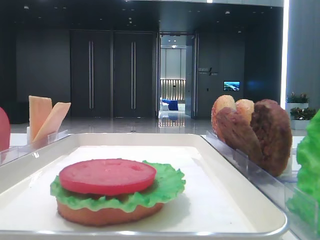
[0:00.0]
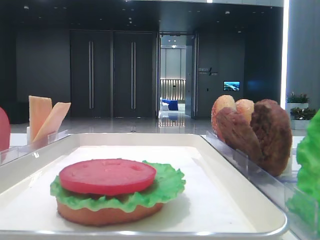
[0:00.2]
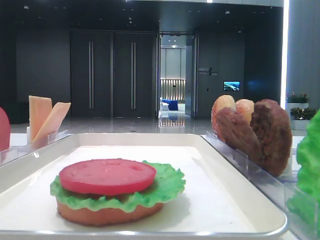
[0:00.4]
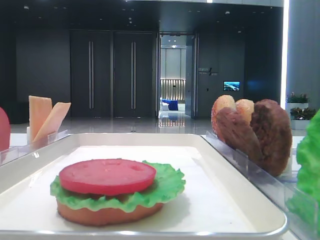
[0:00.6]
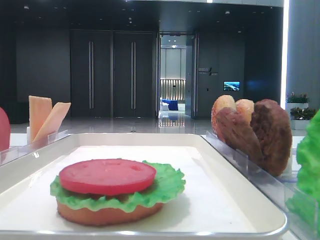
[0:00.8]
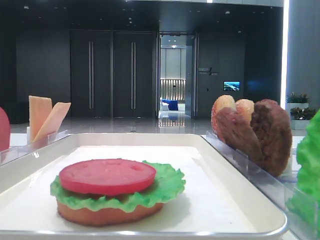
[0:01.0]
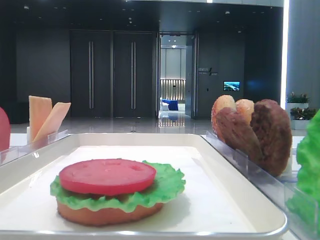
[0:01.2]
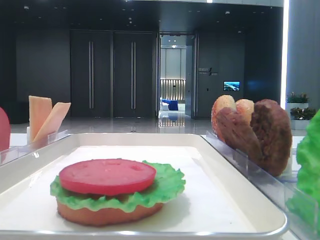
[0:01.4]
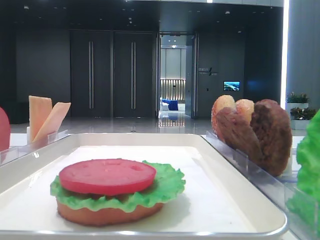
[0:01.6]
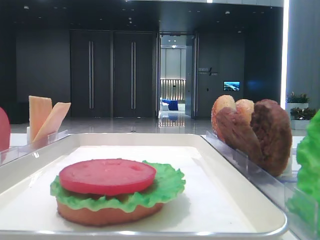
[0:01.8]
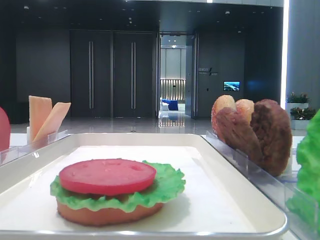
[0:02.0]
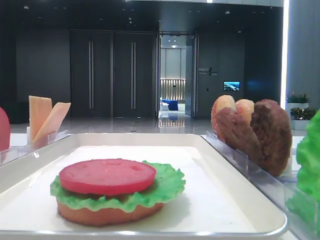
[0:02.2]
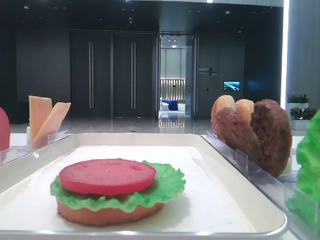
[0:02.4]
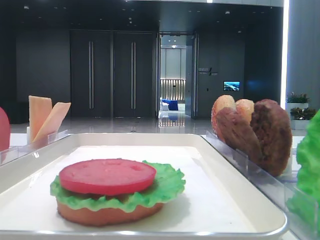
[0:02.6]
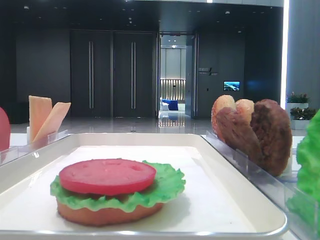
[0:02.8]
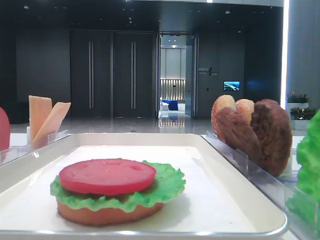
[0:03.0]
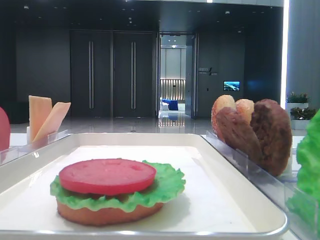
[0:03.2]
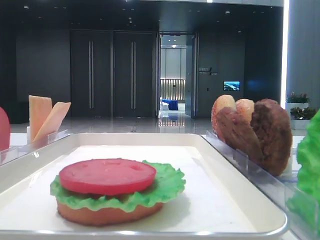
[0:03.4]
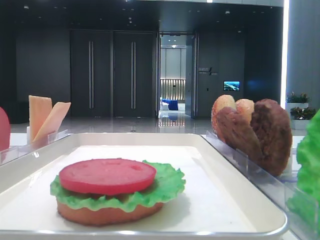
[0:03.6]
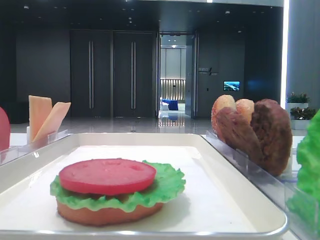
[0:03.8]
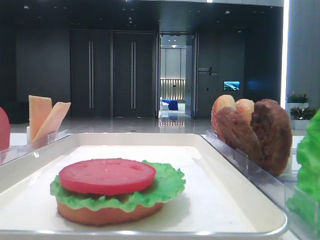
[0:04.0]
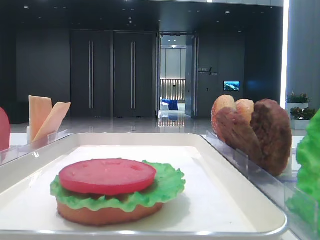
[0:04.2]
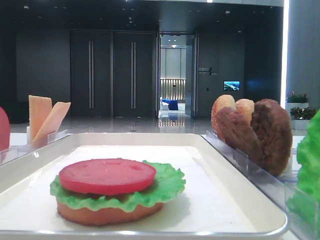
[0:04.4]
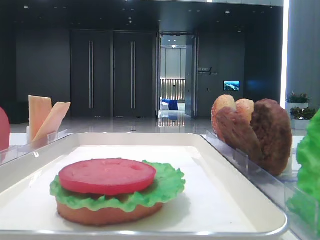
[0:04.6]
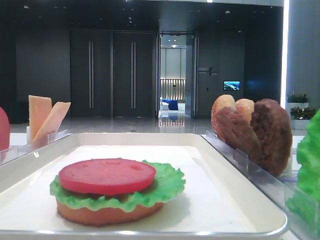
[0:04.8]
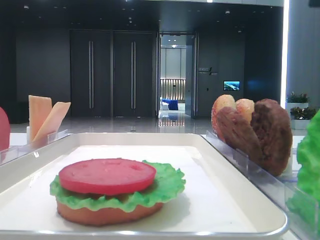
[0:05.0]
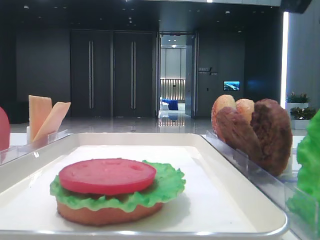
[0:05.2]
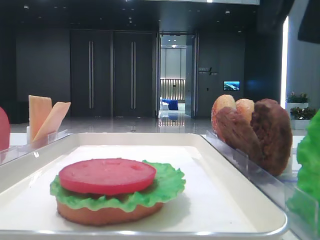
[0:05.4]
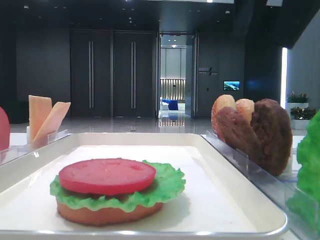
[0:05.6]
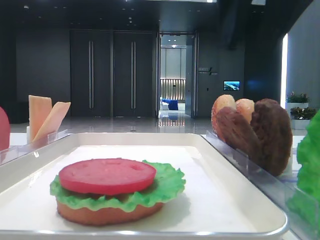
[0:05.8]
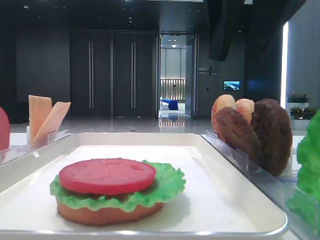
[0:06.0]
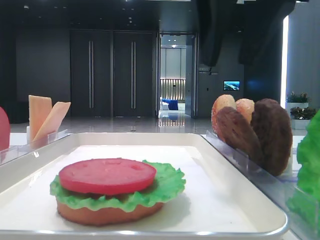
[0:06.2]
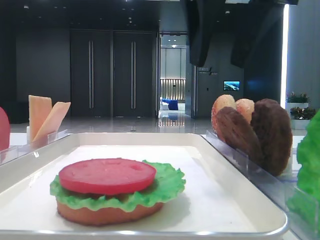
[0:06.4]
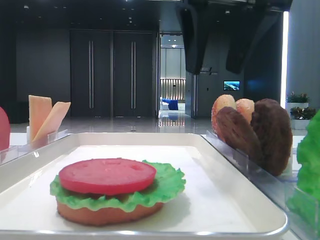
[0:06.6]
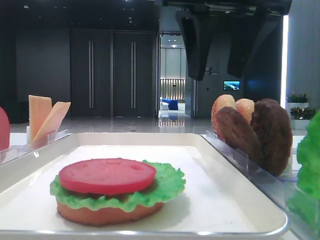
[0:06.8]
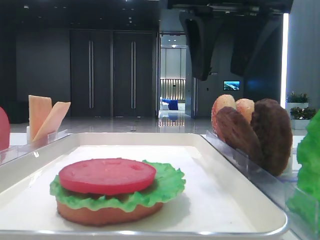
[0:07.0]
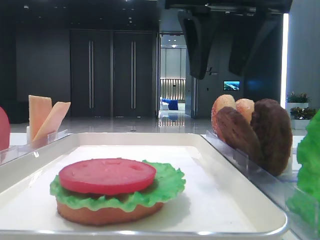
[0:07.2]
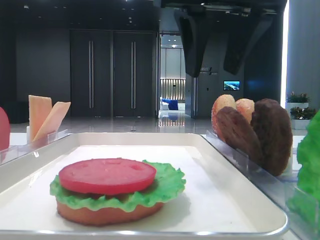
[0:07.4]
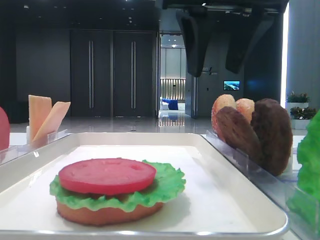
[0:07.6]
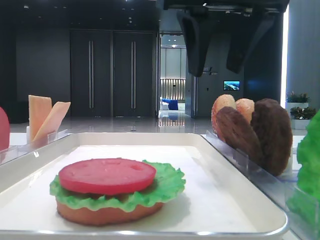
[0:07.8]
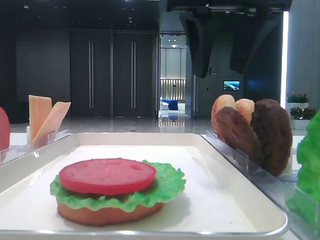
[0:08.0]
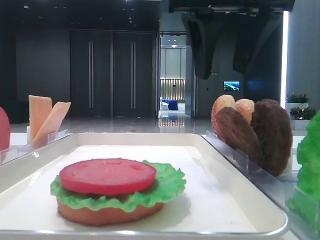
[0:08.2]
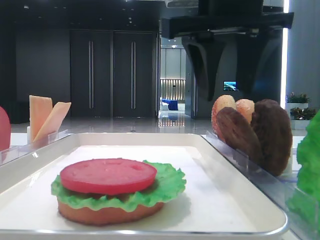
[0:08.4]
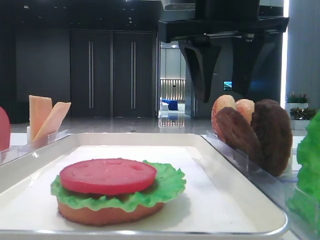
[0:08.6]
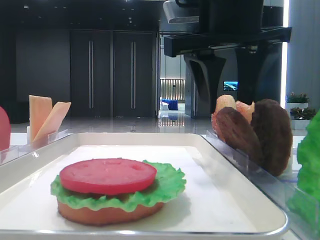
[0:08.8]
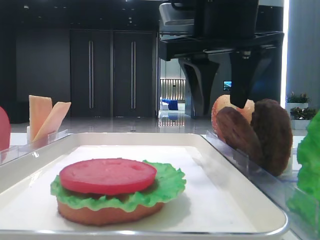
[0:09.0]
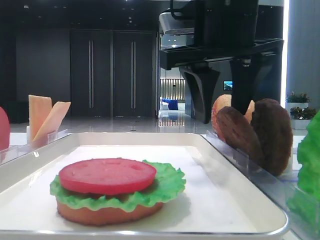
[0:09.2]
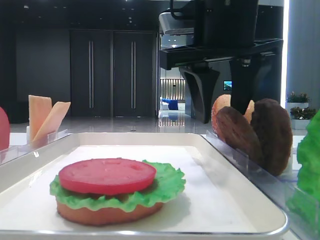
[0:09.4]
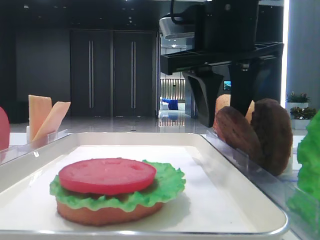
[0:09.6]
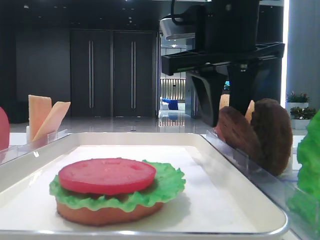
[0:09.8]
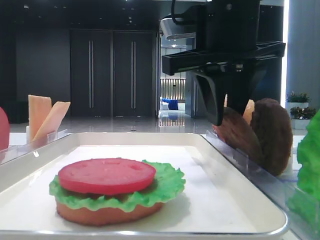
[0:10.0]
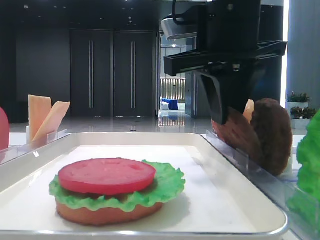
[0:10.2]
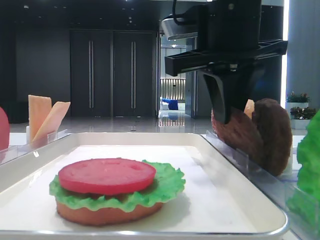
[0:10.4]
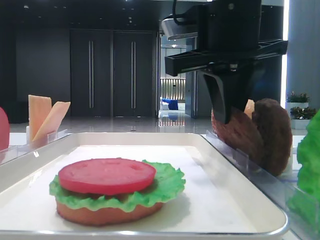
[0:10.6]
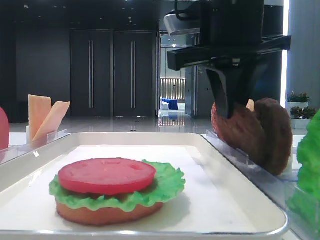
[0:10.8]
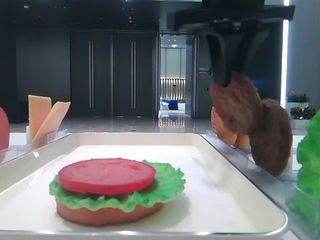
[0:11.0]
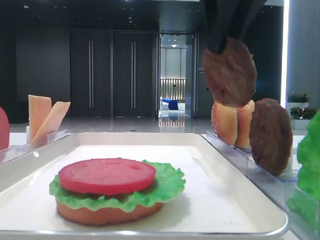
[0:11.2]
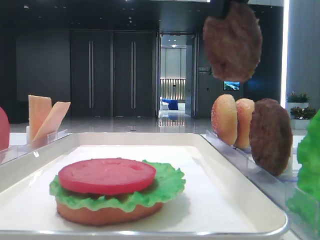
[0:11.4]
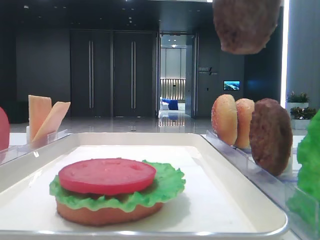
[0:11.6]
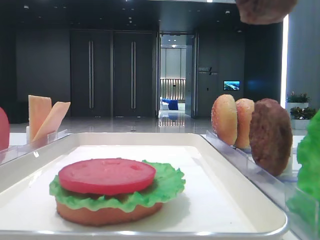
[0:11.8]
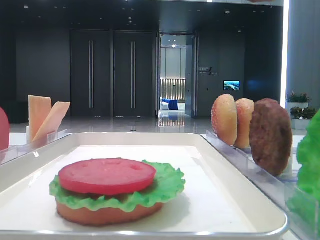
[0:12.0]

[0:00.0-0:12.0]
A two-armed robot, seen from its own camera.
Step, 0:00.0 to 0:10.8: Grab the patty with the right hand.
0:04.4 to 0:06.0: The right gripper goes approximately 15 cm to the left and forward.
0:06.0 to 0:07.6: The grippers make only small movements.
0:07.6 to 0:09.0: The grippers move only a little.
0:09.0 to 0:10.4: The right gripper closes its fingers.
0:10.4 to 0:12.0: The right gripper shifts some 20 cm upward and backward.

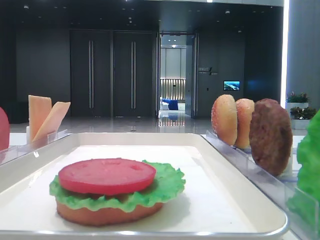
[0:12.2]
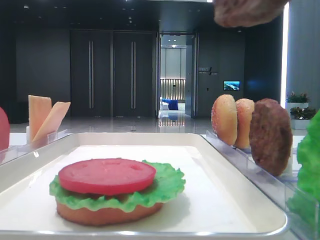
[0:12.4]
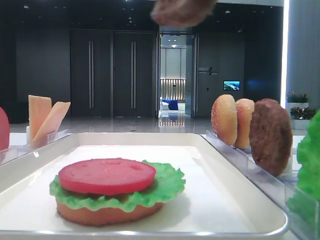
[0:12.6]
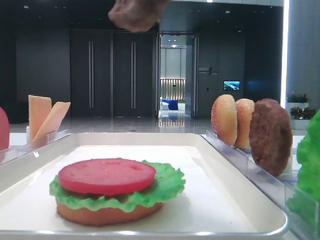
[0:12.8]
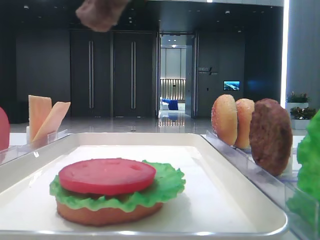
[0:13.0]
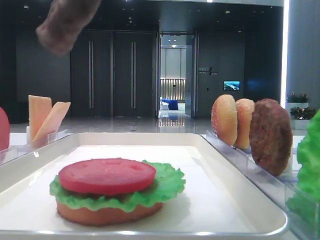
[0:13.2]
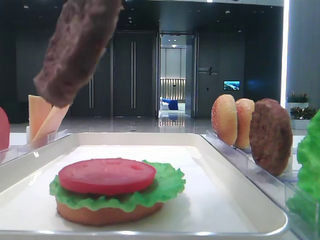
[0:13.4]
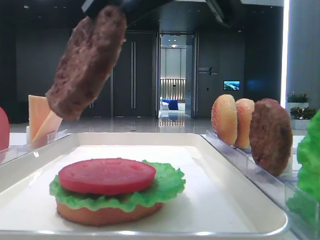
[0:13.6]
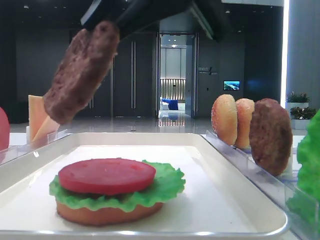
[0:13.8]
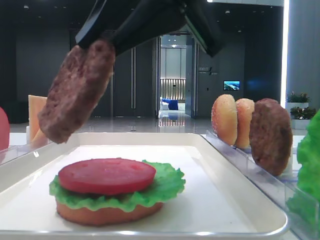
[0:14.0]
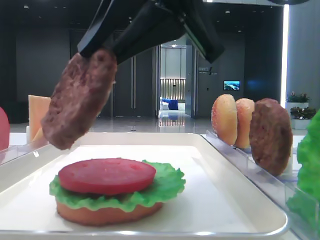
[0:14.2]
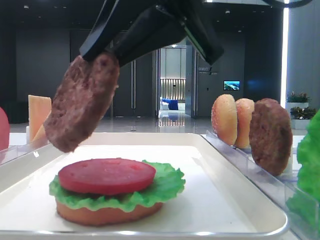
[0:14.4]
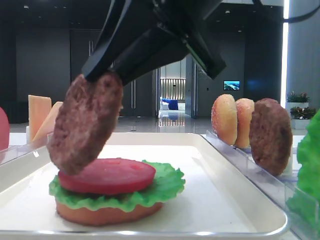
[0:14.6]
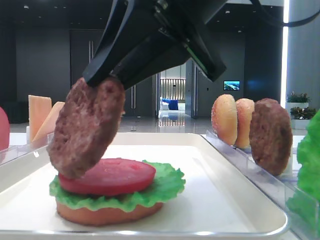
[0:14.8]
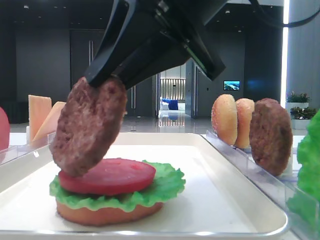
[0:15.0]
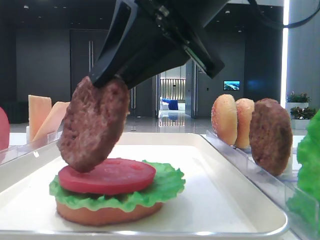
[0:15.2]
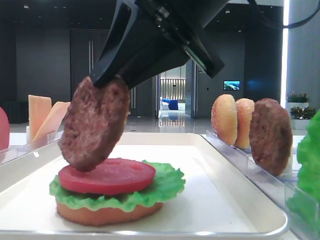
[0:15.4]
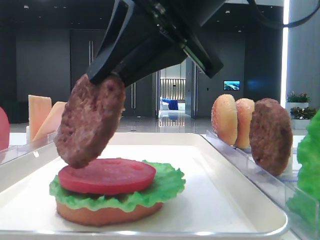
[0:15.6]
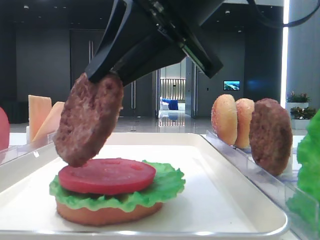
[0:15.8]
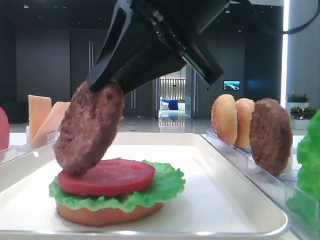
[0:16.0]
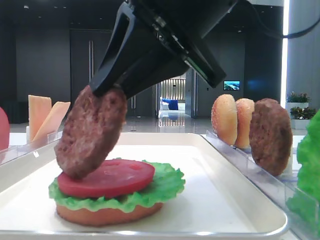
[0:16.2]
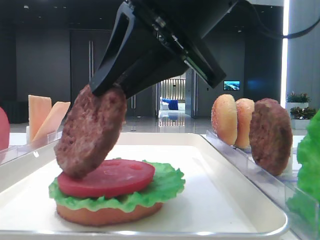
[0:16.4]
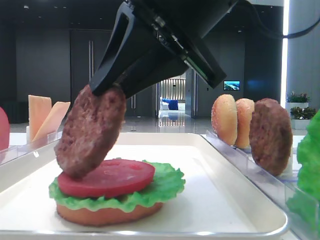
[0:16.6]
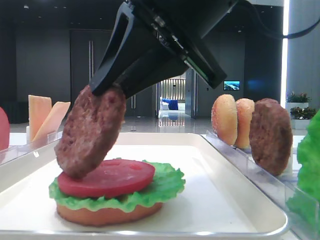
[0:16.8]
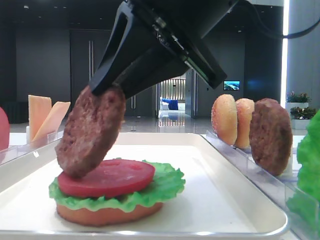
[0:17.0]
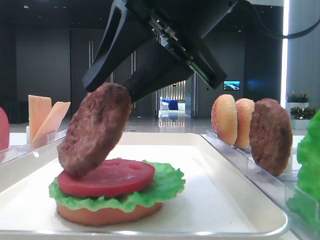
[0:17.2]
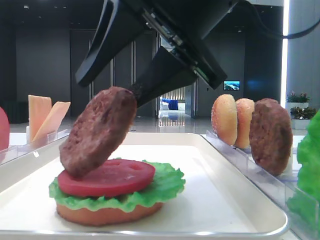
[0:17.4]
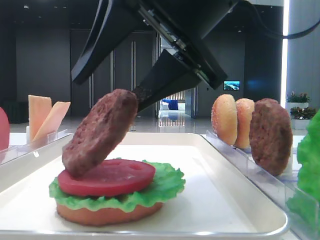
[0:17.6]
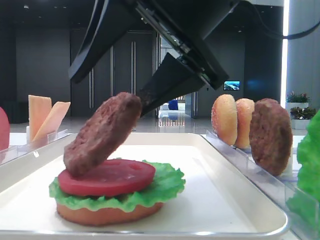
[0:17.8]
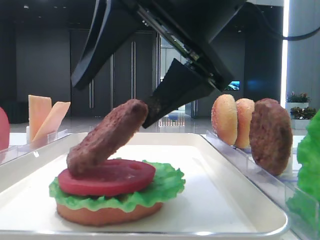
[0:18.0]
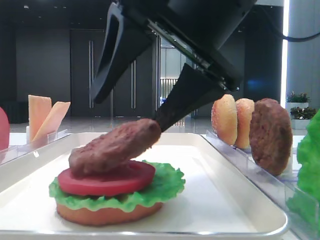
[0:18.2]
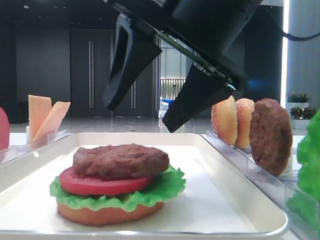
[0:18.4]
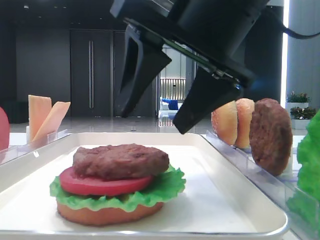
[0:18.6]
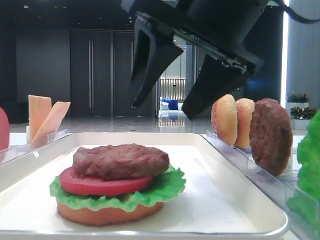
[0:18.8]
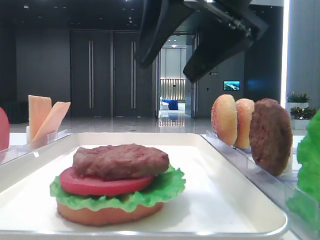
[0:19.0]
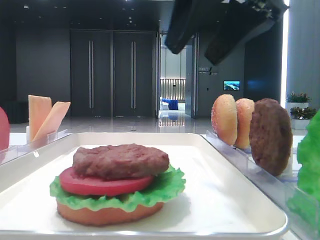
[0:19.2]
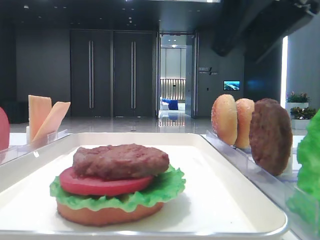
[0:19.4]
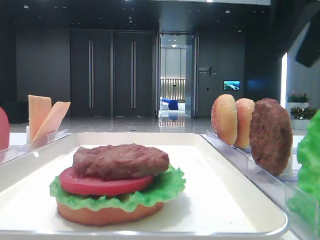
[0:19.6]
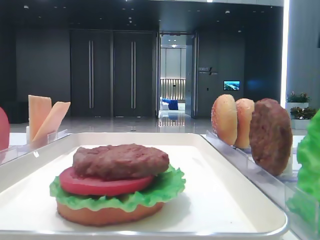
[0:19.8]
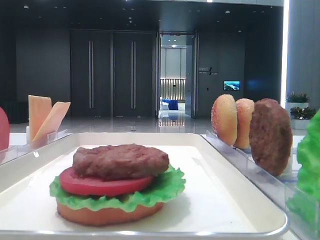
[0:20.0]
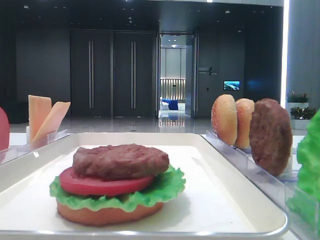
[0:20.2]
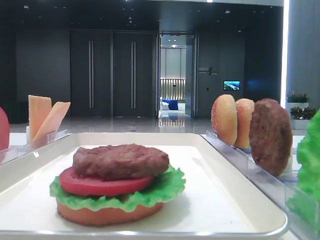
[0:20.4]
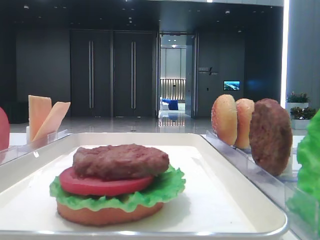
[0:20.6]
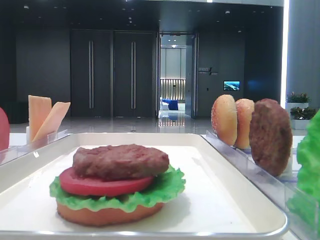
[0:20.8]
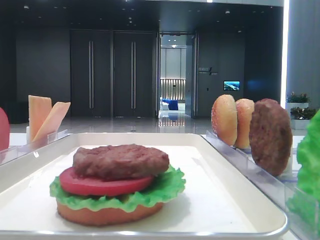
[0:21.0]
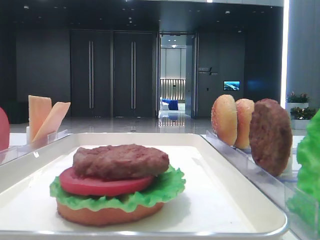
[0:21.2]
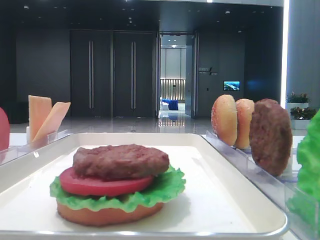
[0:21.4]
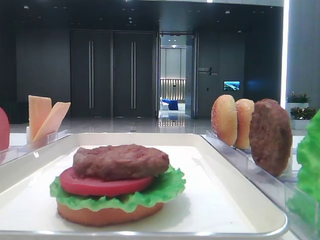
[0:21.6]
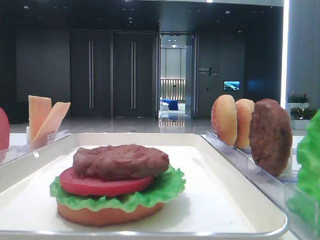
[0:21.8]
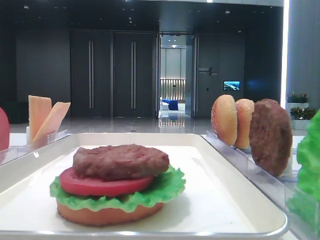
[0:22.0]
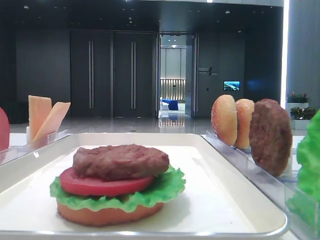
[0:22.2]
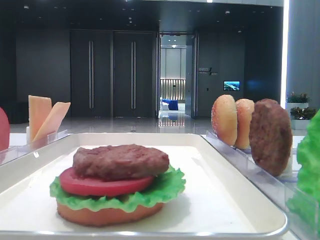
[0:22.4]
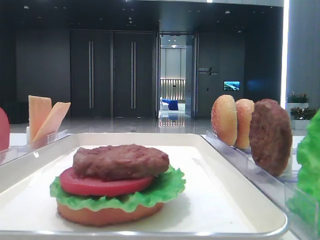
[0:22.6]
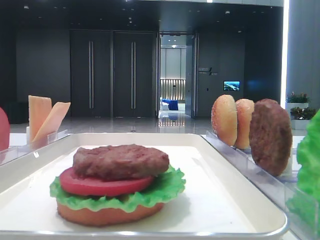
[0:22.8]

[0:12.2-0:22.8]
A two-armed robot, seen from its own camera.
Step, 0:12.2 to 0:18.2: Place the patty on the tomato slice with the right hand.
0:12.2 to 0:13.8: The right gripper is displaced downward, to the left and forward by approximately 15 cm.
0:13.8 to 0:15.2: The grippers stay close to where they were, moving slightly.
0:15.2 to 0:16.8: Both grippers stay about where they are.
0:16.8 to 0:18.2: The right gripper opens.
0:18.2 to 0:19.8: The right gripper is displaced to the right and upward by approximately 20 cm, and closes.
